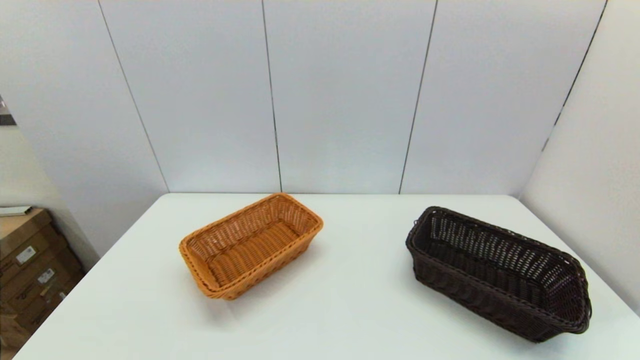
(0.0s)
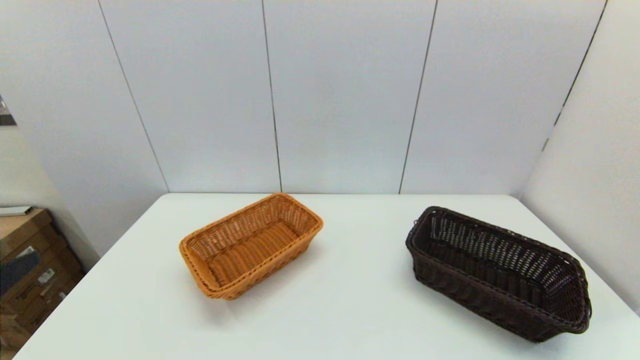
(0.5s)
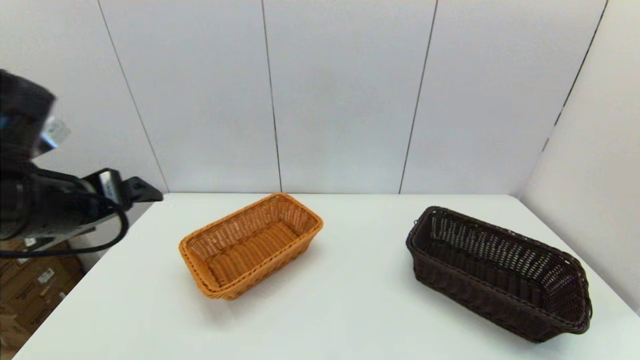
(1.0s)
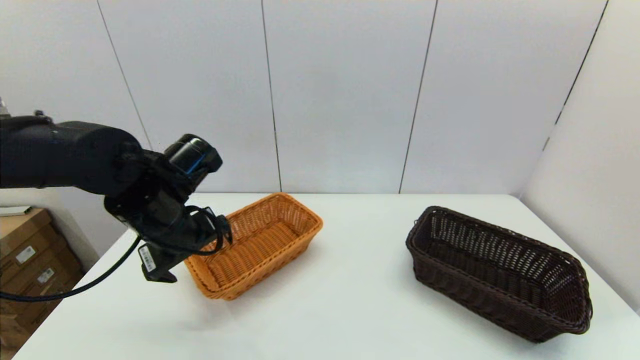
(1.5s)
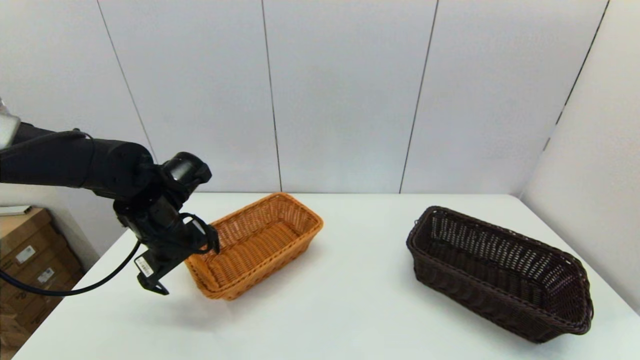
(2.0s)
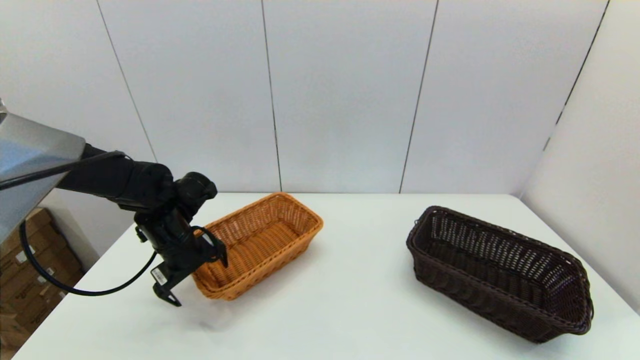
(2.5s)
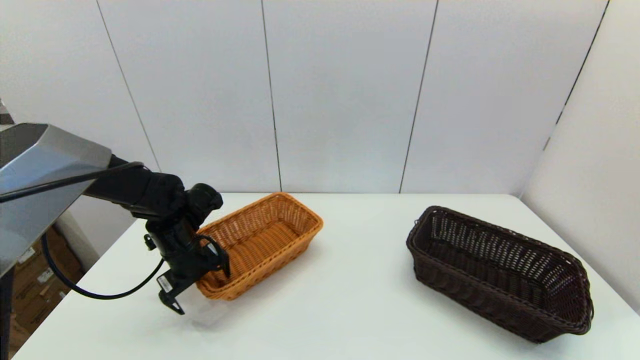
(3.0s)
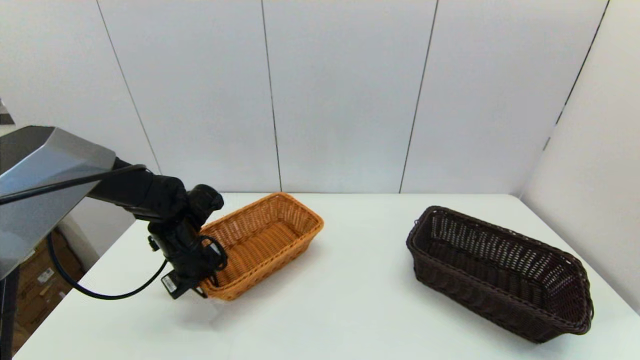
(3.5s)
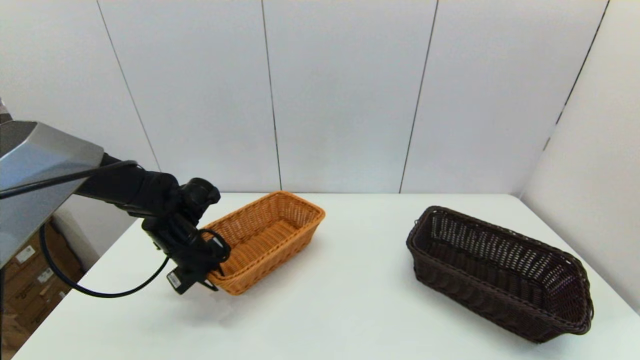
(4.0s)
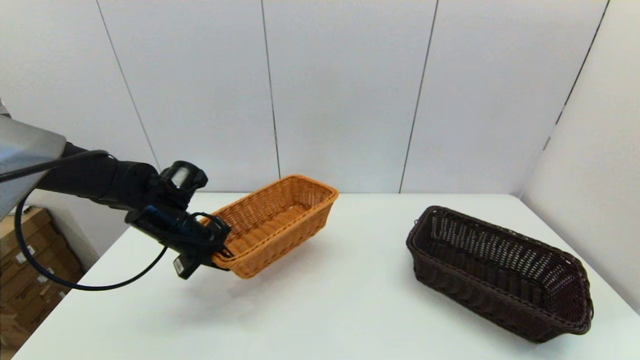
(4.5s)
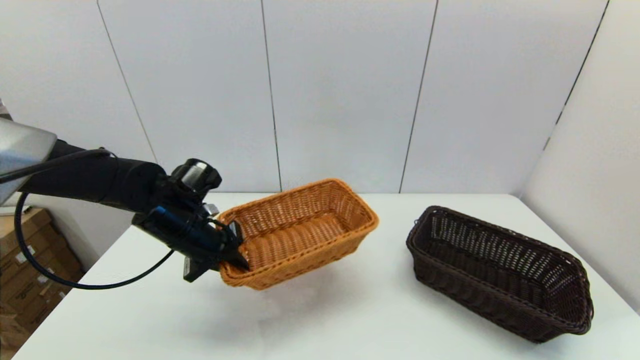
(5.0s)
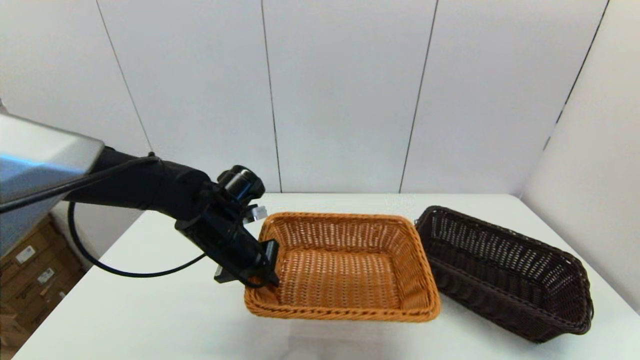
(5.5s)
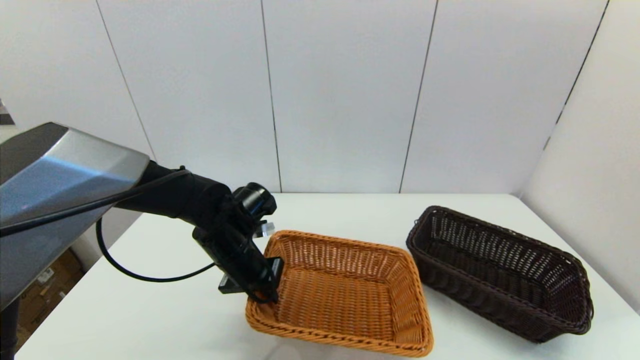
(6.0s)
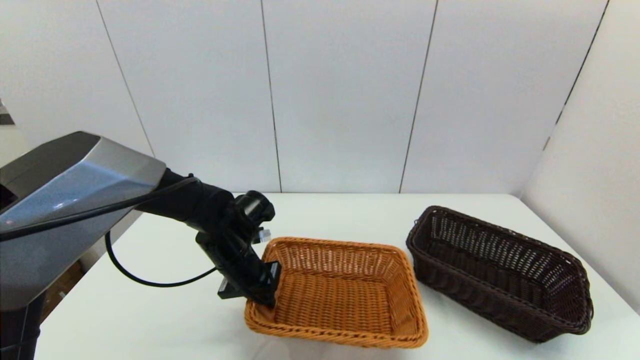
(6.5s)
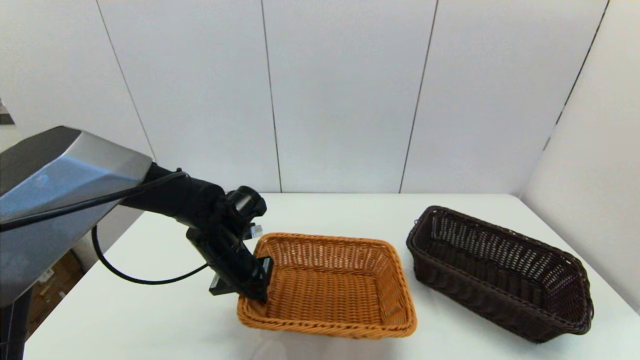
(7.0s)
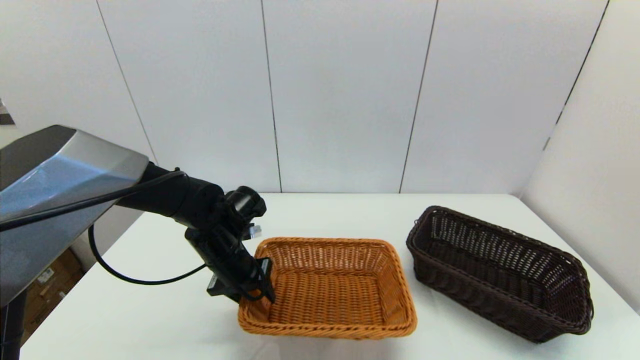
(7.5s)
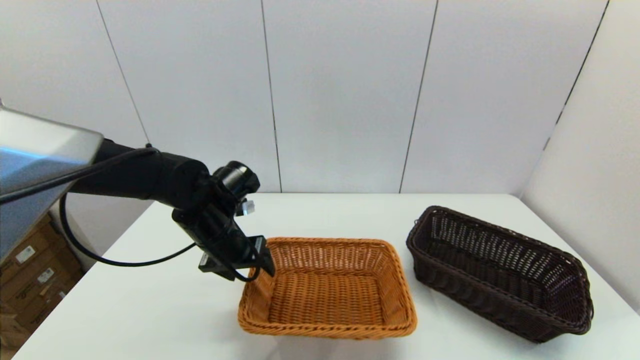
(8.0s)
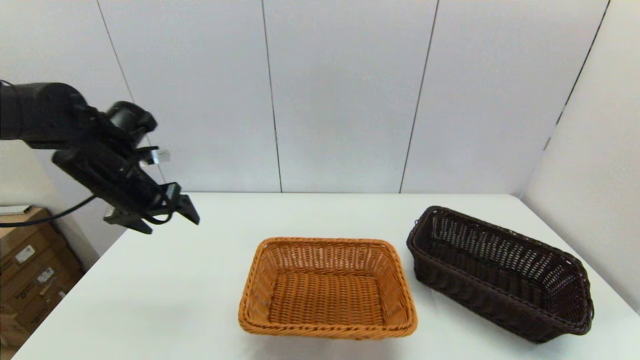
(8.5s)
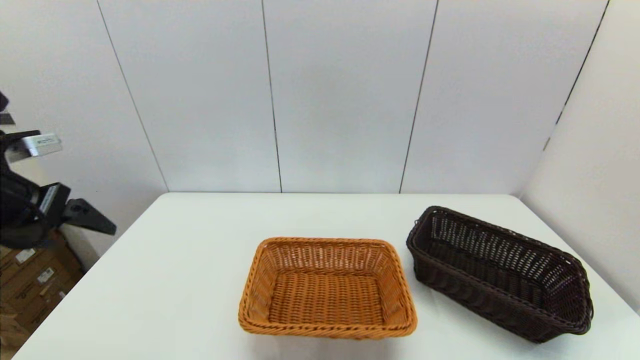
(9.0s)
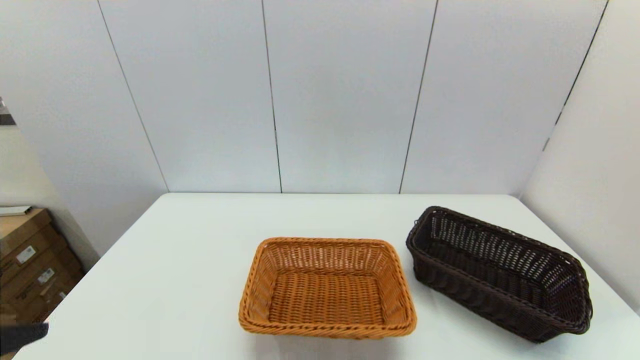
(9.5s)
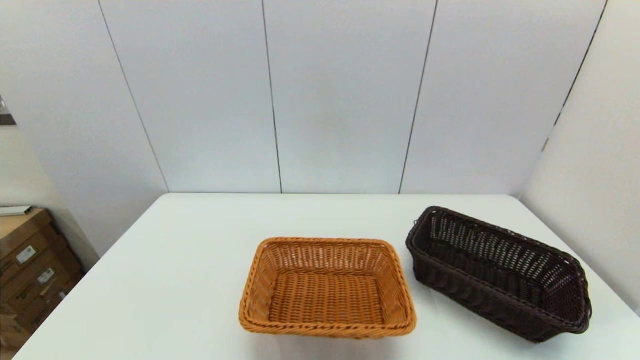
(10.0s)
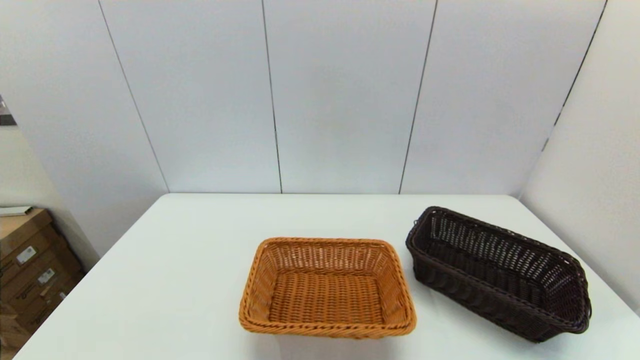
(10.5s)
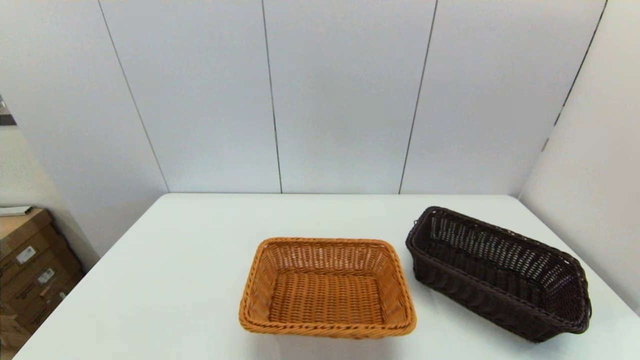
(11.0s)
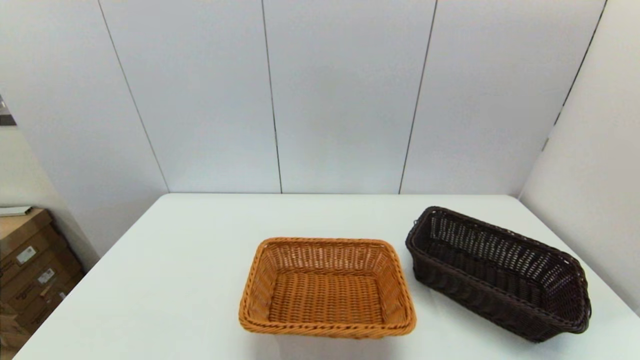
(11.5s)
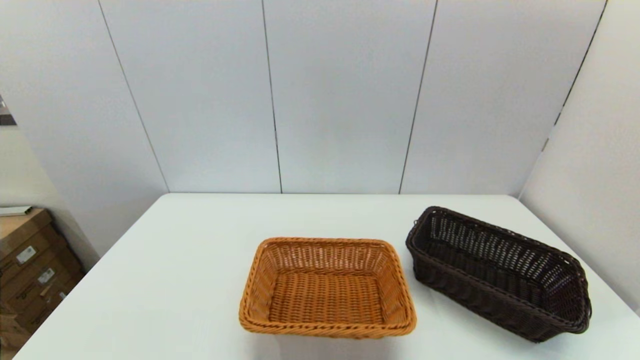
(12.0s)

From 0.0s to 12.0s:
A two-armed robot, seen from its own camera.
Task of the whole recording: stack a basket on top of another basket.
Step, from 0.0s to 4.0s: Grasp the light basket with the left gripper.
Step, from 4.5s to 8.0s: Place the light basket on the middle of the table with the left gripper.
From 0.0s to 2.0s: The left gripper goes roughly 35 cm forward.
From 2.0s to 4.0s: The left gripper moves downward, roughly 5 cm, and closes up.
From 4.0s to 6.0s: The left gripper heads to the right, covering about 10 cm.
From 6.0s to 8.0s: The left gripper opens up.
From 8.0s to 10.0s: The left gripper moves backward, roughly 35 cm.

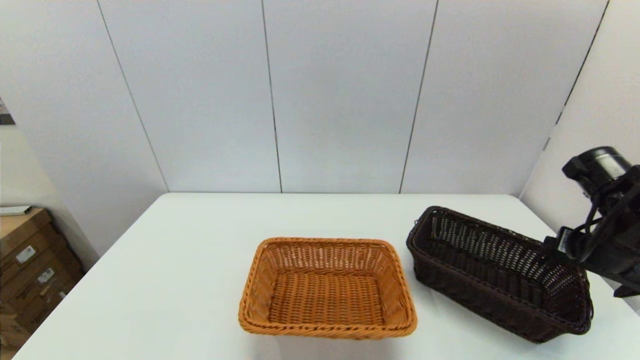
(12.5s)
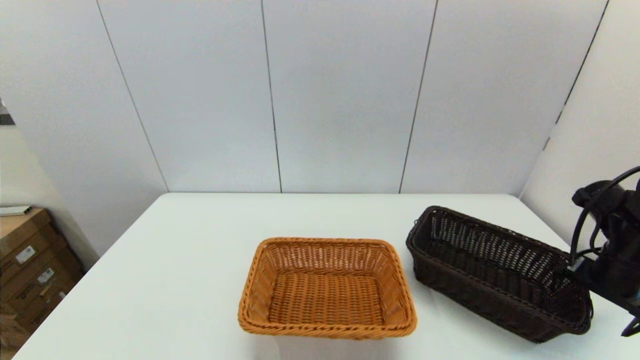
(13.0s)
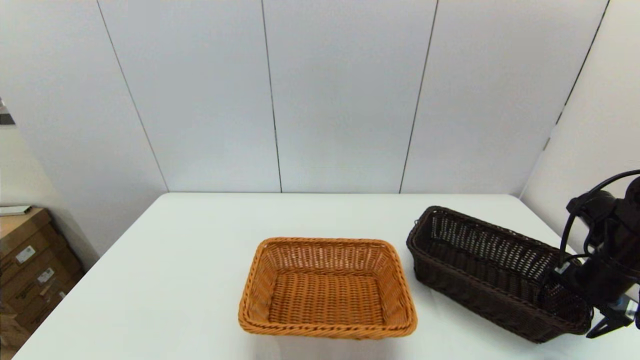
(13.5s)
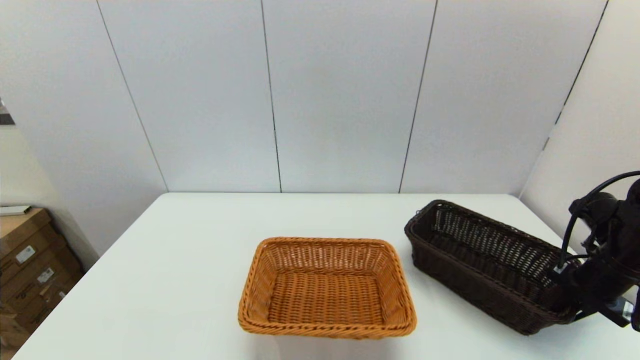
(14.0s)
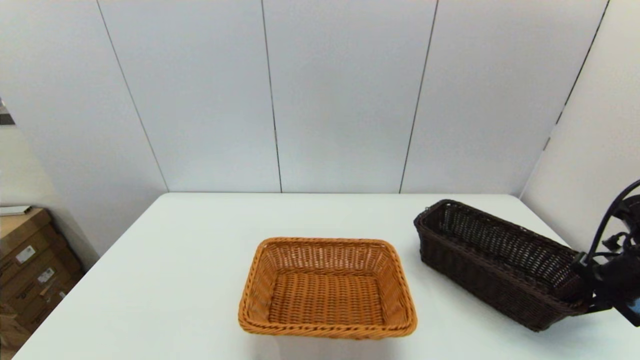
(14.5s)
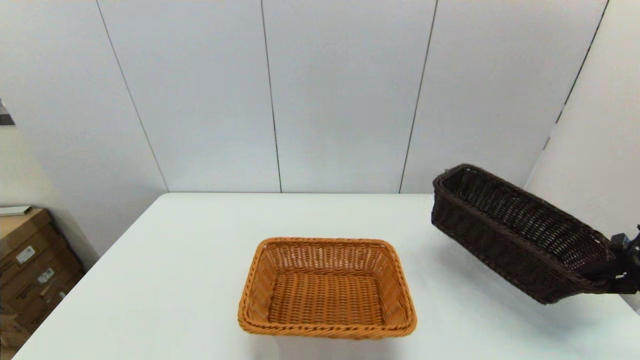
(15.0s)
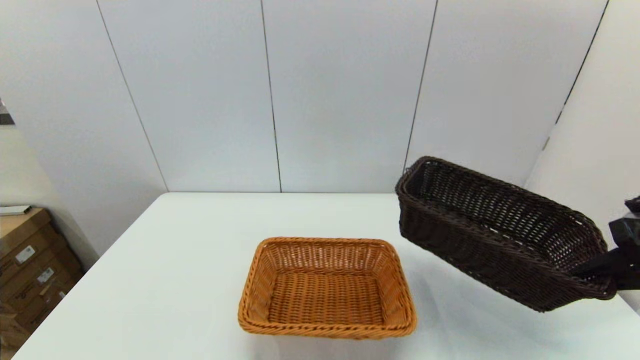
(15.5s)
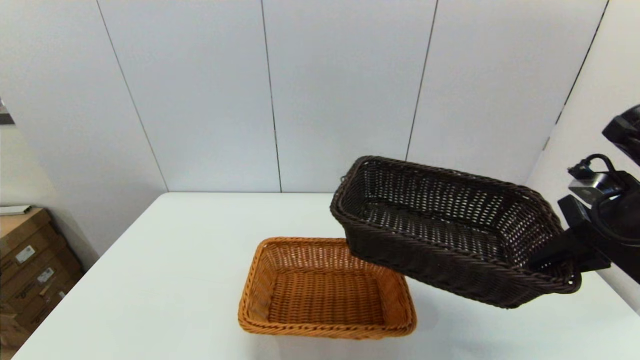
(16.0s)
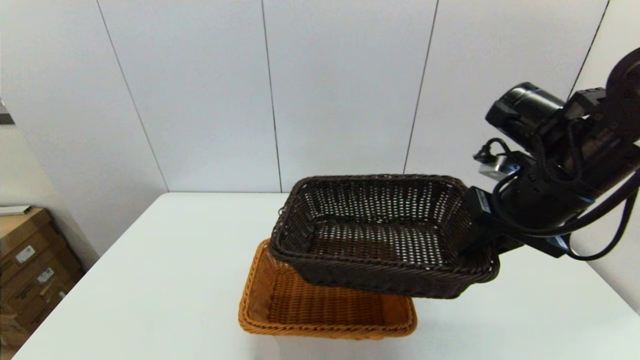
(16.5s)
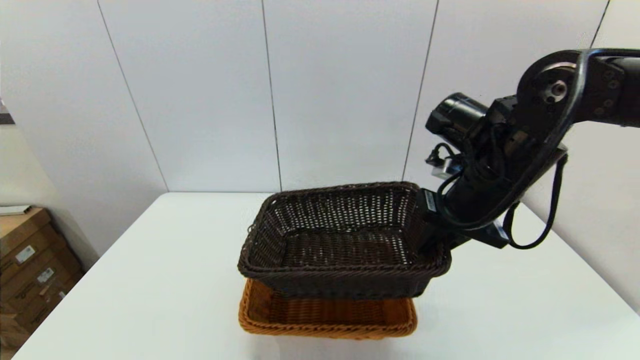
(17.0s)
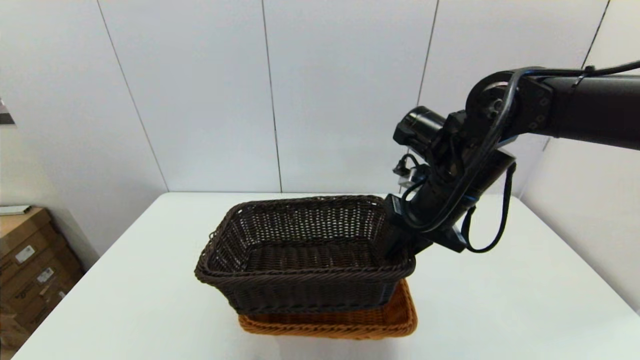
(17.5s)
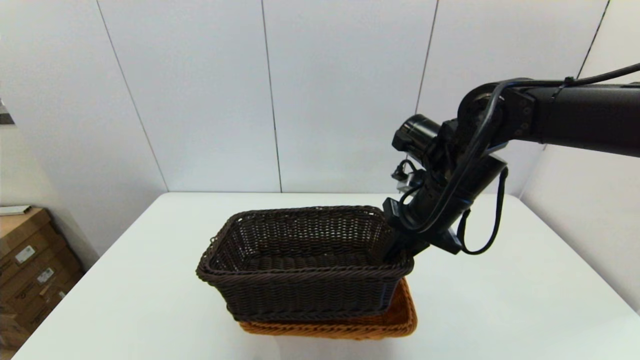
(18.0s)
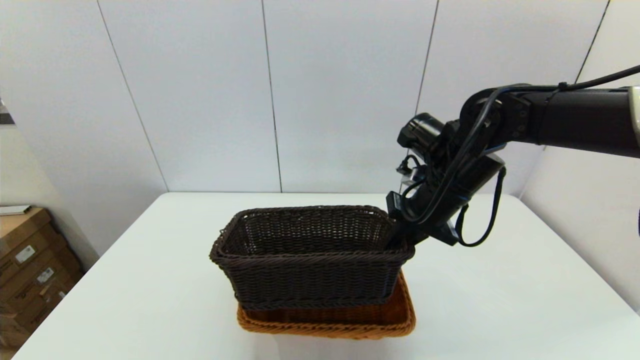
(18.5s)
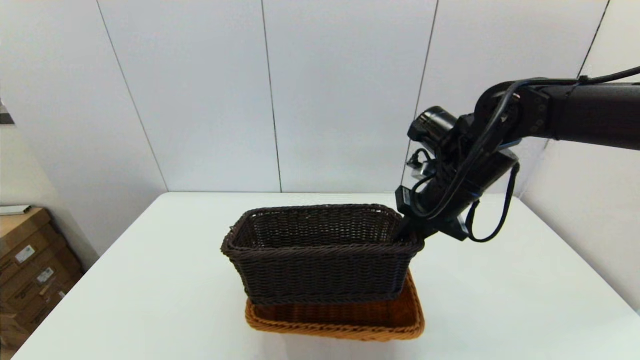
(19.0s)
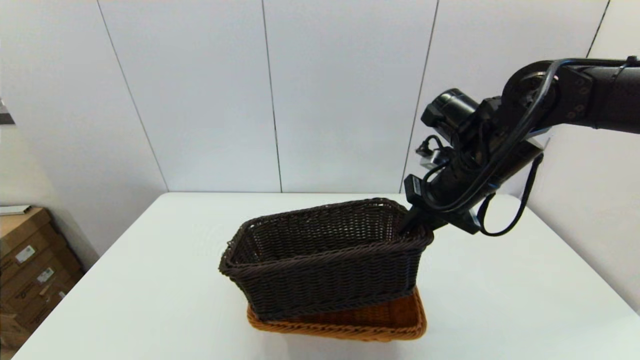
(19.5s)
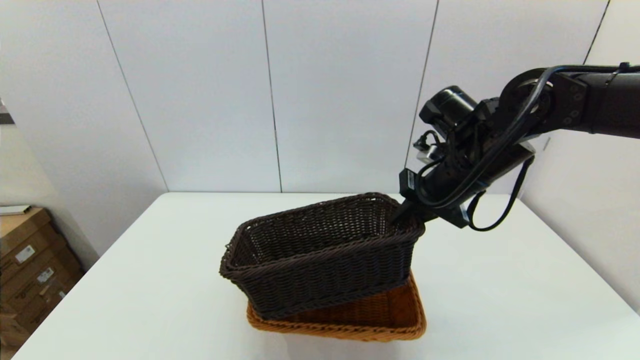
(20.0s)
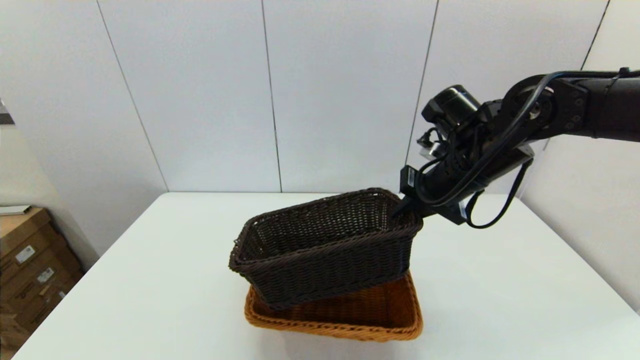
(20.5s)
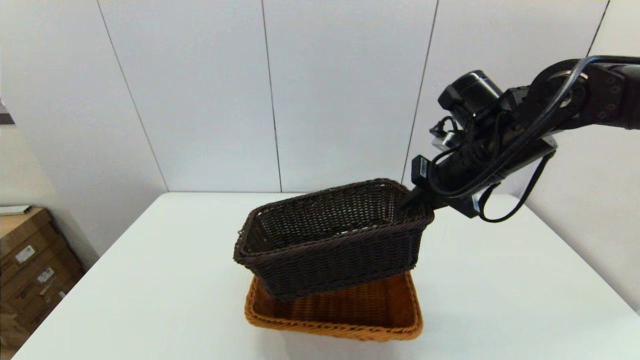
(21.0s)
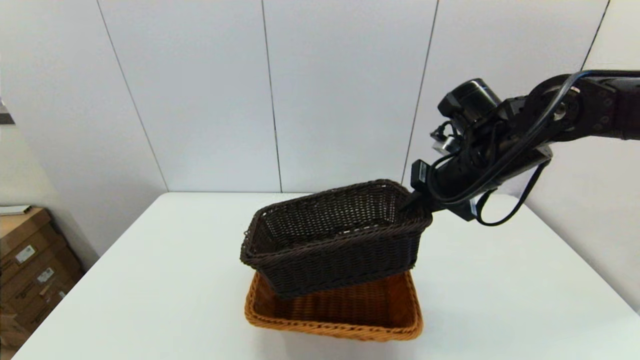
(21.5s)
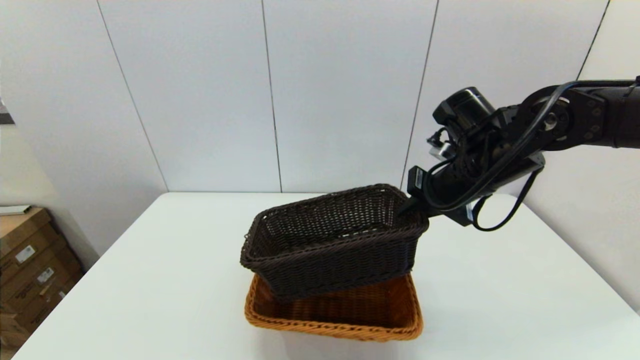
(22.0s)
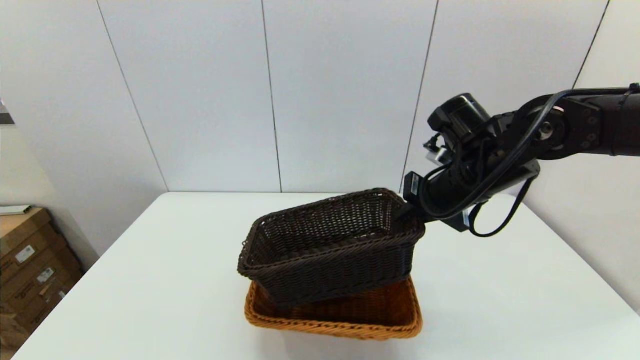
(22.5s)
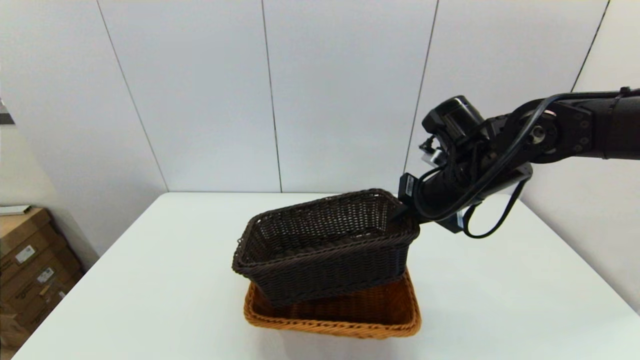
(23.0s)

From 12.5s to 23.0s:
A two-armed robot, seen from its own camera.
Task of the whole recording: stack a basket on top of another basket.
From 12.5s to 14.5s: The right gripper shifts about 10 cm to the right and downward, and closes its fingers.
From 14.5s to 16.5s: The right gripper travels to the left and upward by some 25 cm.
From 16.5s to 19.0s: The right gripper goes about 10 cm forward and to the left.
From 19.0s to 23.0s: The grippers move only a little.
